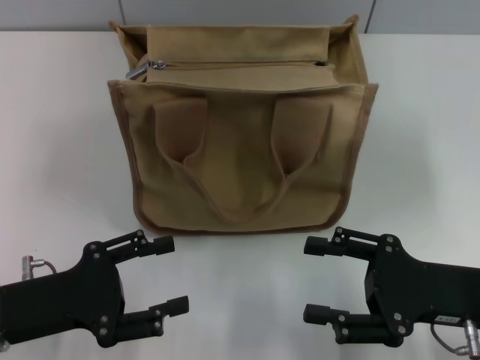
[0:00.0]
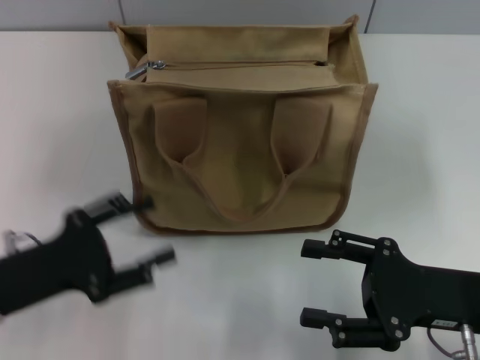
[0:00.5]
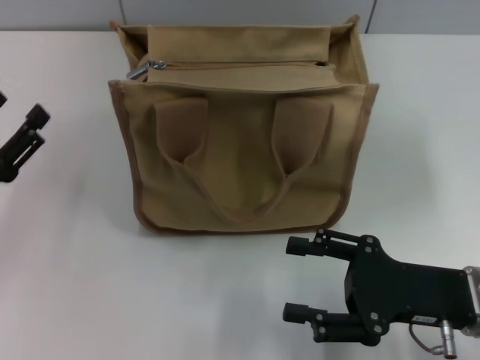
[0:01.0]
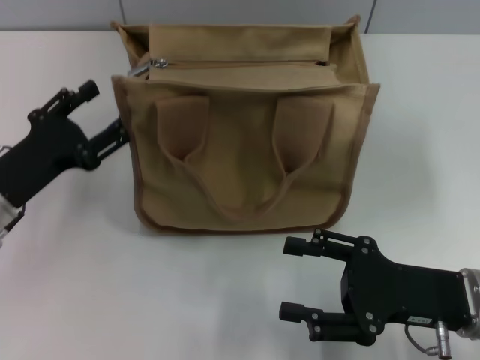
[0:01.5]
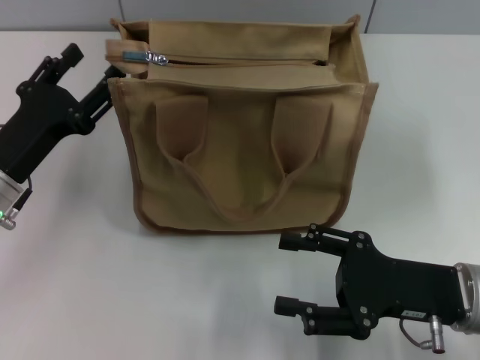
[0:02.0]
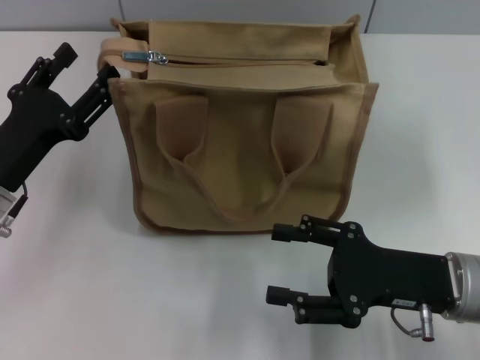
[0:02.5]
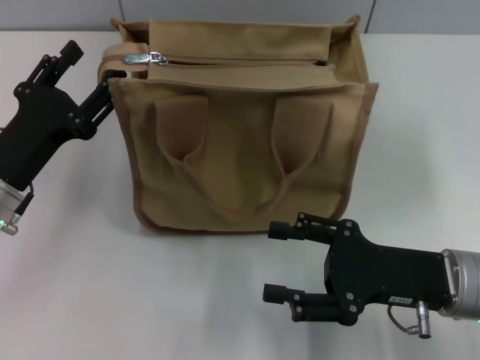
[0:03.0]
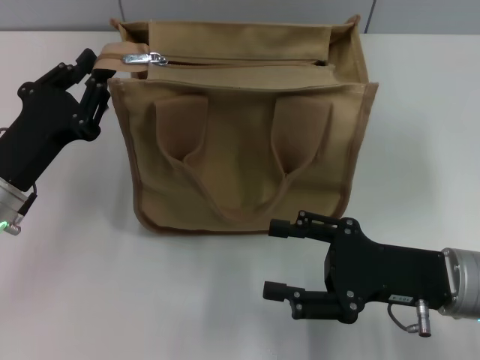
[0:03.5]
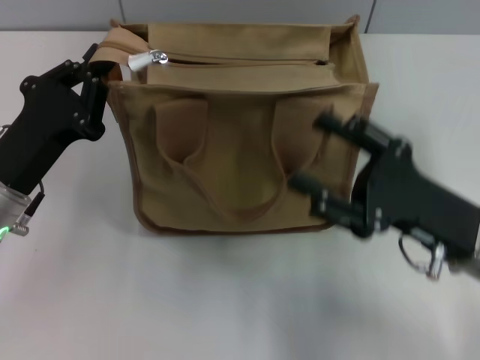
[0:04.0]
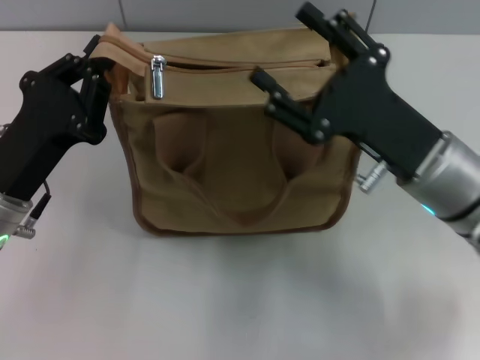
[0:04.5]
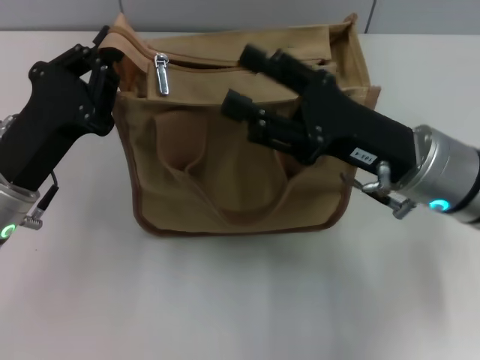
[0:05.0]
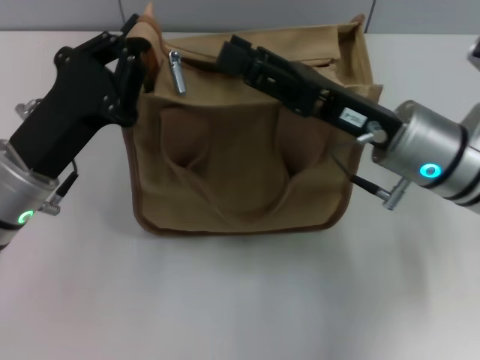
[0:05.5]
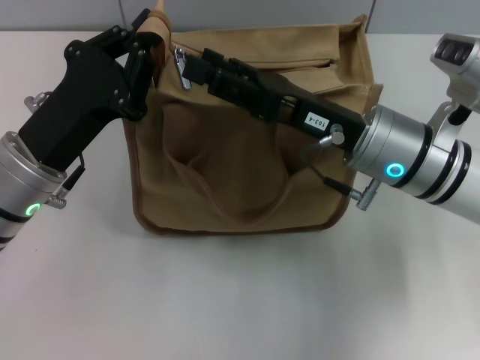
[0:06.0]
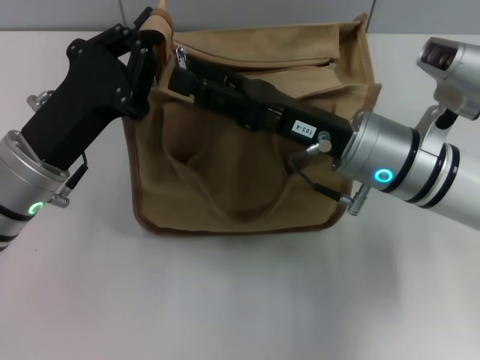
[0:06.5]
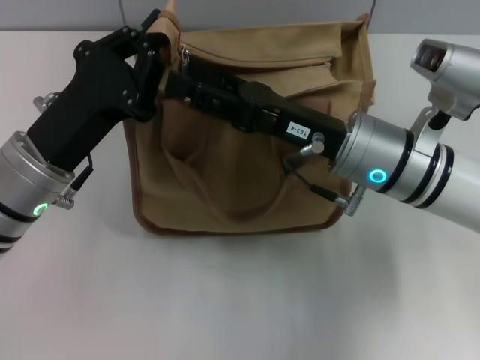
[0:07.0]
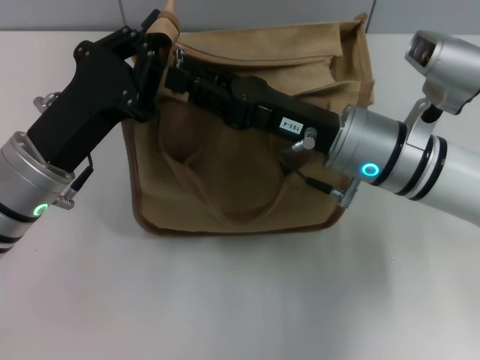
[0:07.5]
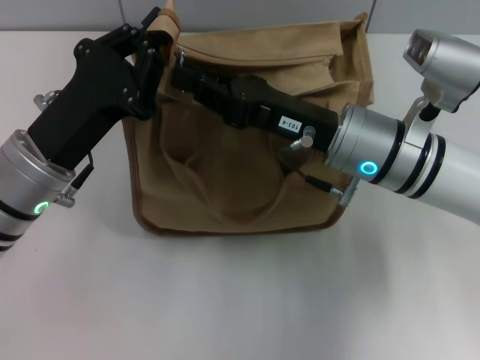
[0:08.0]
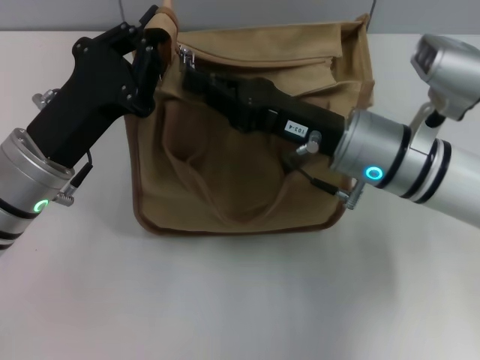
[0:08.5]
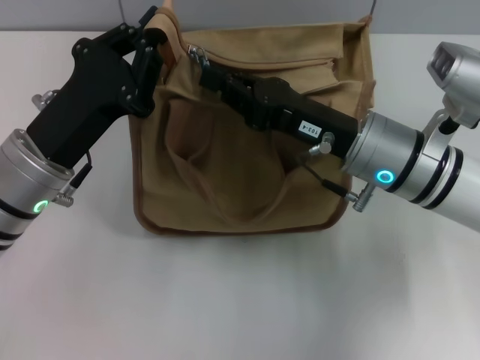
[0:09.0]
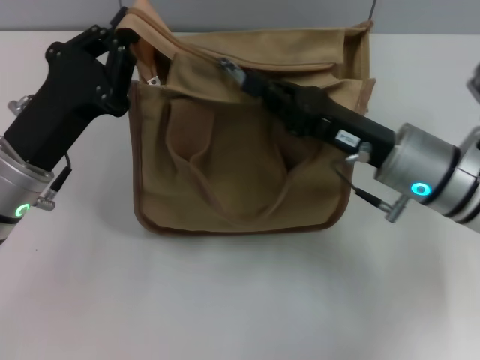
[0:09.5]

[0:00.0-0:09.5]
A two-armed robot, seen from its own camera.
0:00.0 to 0:02.0: The left gripper travels forward by approximately 10 cm.
0:02.0 to 0:04.0: The left gripper closes up.
0:04.0 to 0:05.5: The right gripper shifts about 10 cm forward and to the left.
0:07.5 to 0:09.5: The right gripper travels to the right by some 5 cm, and closes its fingers.

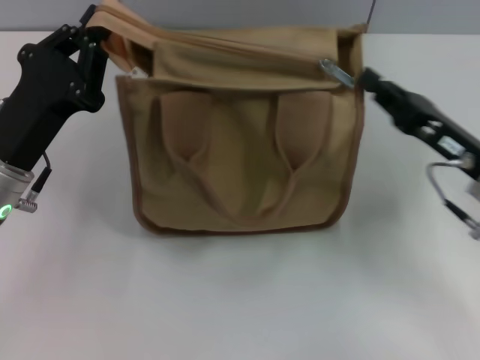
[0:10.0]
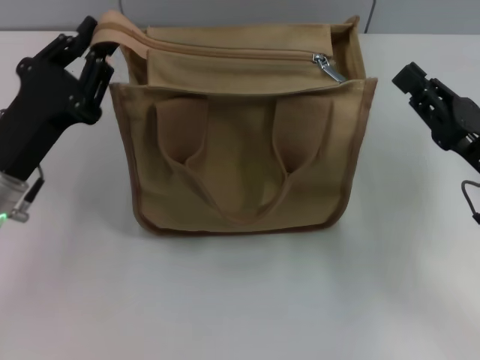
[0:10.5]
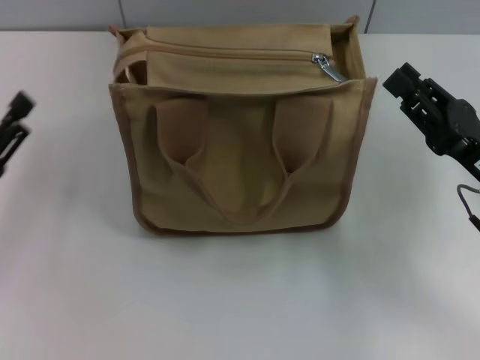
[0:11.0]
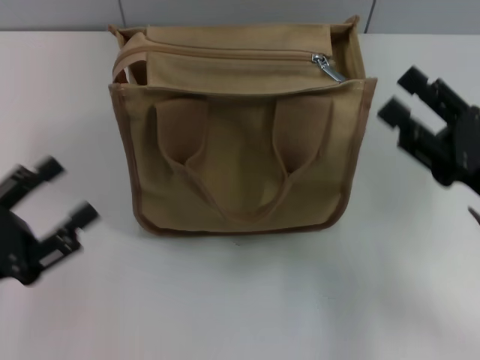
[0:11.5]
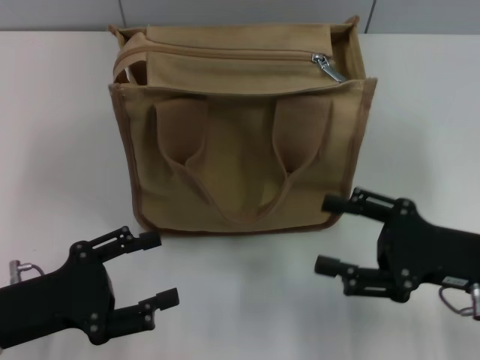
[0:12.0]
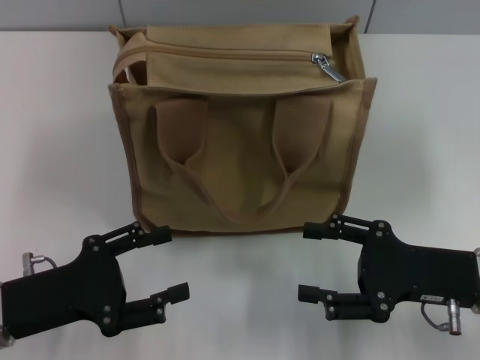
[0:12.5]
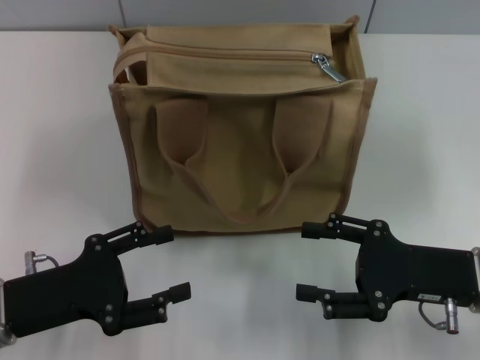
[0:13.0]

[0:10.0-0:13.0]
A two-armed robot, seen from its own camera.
0:10.0 to 0:11.5: The right gripper ends up approximately 5 cm from where it was, and opens its fingers; the left gripper shifts approximately 15 cm backward and to the left, and opens.
0:11.5 to 0:13.0: The left gripper changes place by approximately 5 cm.

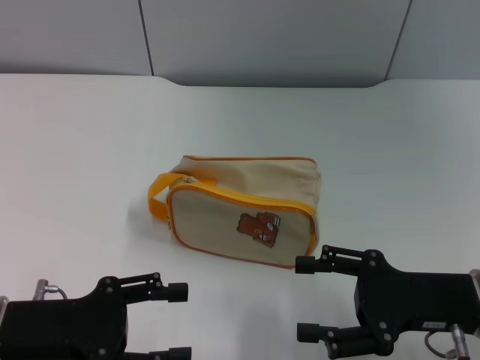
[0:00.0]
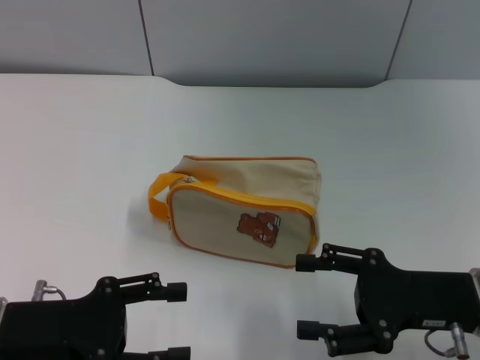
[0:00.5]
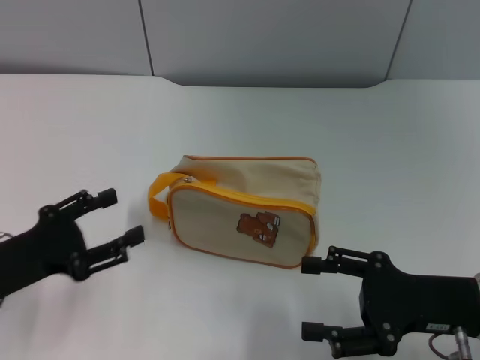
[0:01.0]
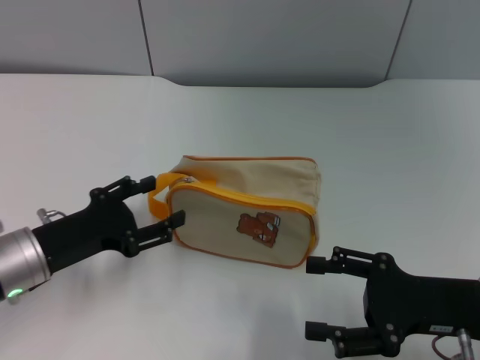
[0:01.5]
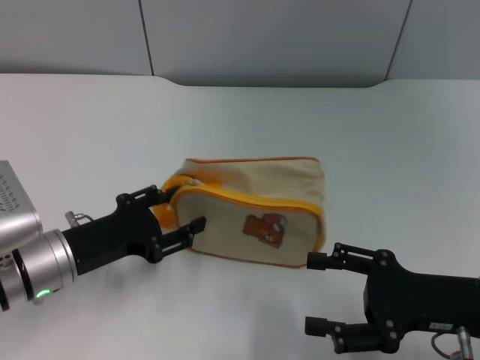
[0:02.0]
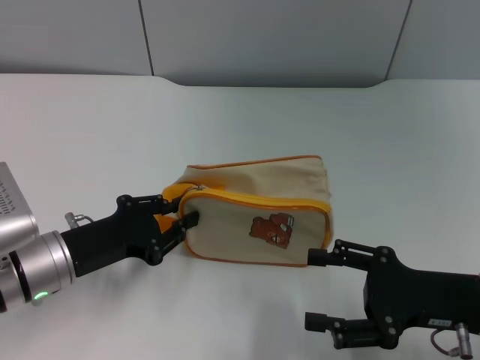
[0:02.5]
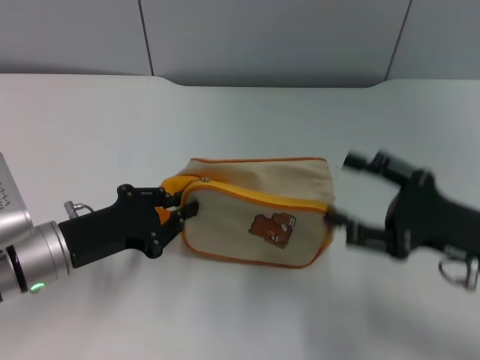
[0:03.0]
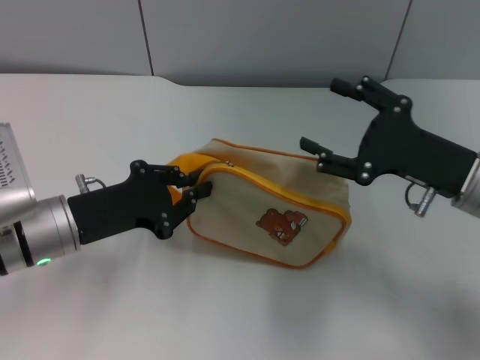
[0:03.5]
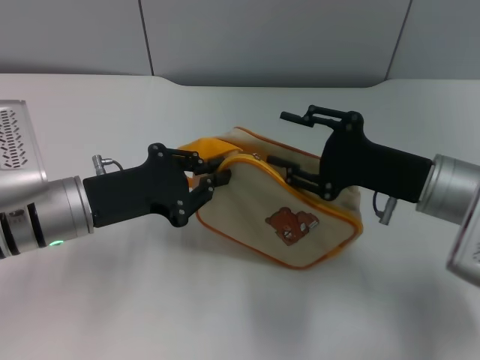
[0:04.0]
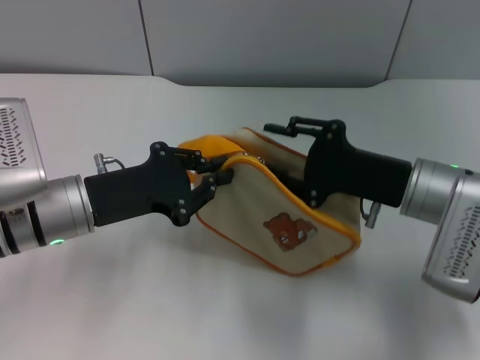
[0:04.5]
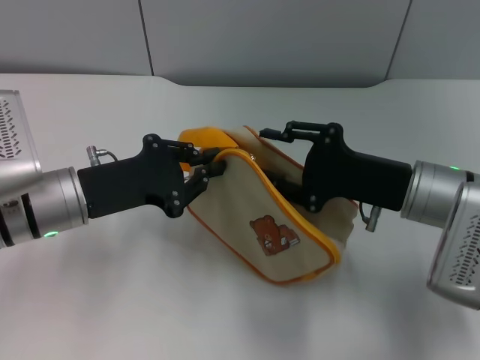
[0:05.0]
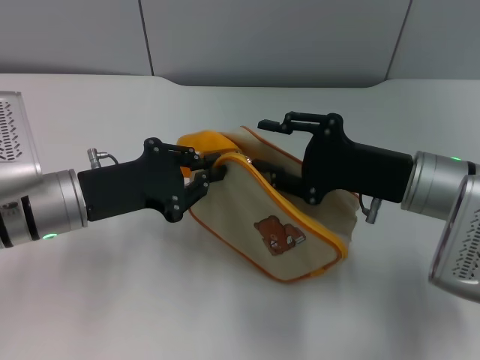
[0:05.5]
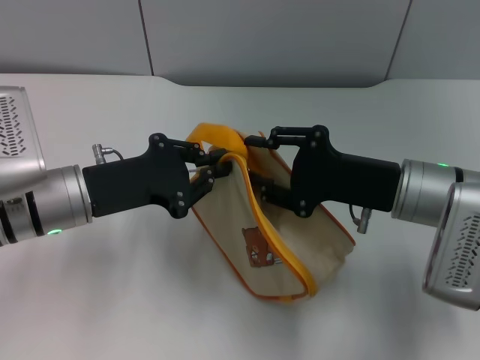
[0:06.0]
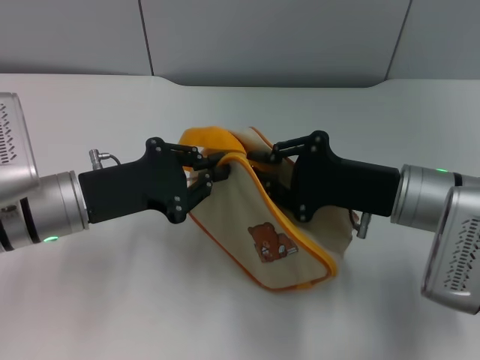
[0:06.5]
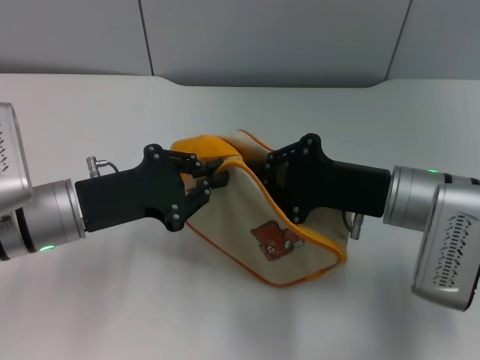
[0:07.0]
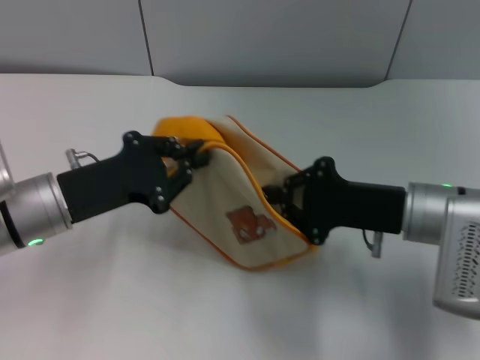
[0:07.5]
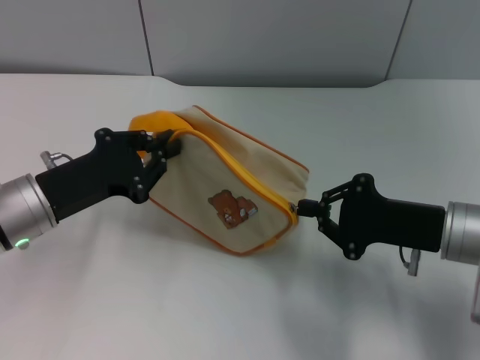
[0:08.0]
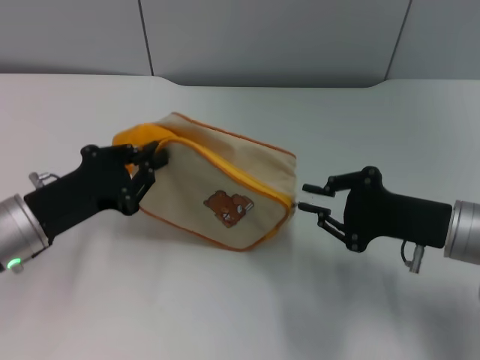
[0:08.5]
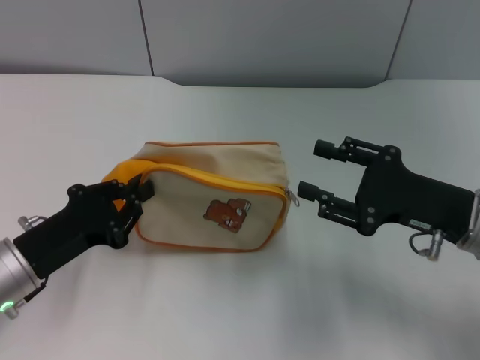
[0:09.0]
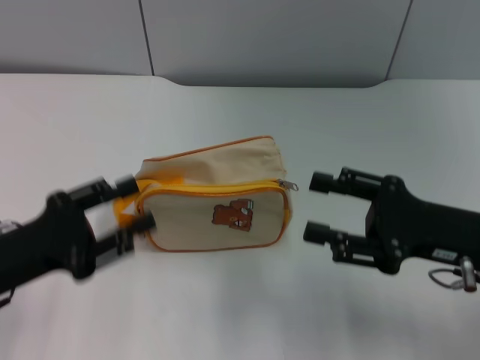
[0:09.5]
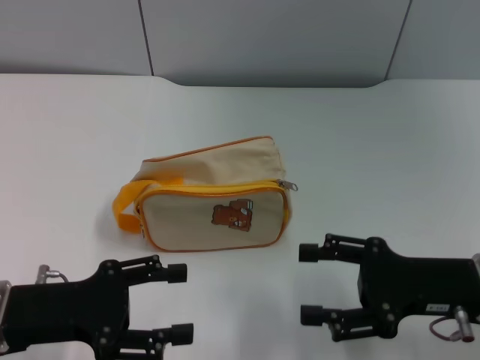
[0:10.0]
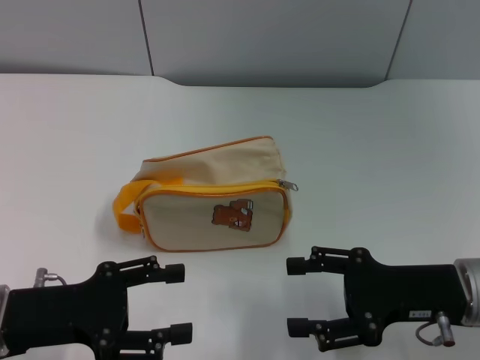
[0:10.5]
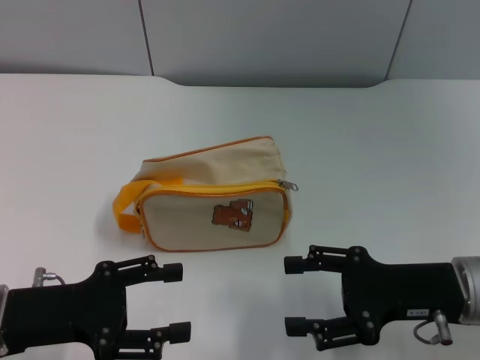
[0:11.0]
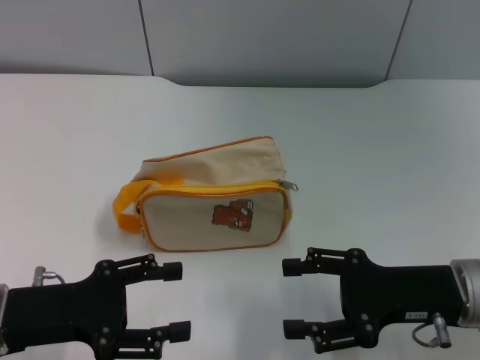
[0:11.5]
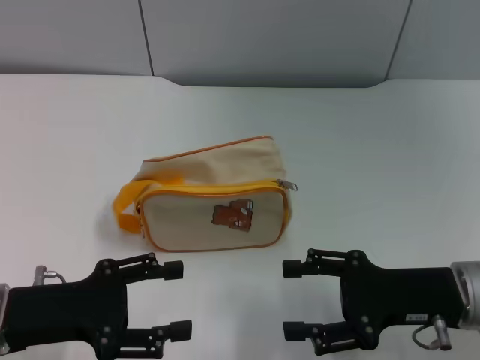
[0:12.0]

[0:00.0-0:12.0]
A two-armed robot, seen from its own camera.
Step, 0:00.0 to 0:03.5: Pick up the bag with left gripper.
Step, 0:04.0 to 0:08.5: Unzip the zipper of bag with right gripper.
Step, 0:09.0 to 0:09.5: Place the bag on the table with left gripper.
0:00.0 to 0:02.0: The left gripper goes approximately 5 cm forward.
0:02.0 to 0:04.0: The right gripper shifts about 10 cm forward. The left gripper changes place by roughly 5 cm, and closes.
0:06.0 to 0:08.0: The right gripper changes place by approximately 5 cm, and closes up.
0:08.0 to 0:10.0: The left gripper heads backward, covering roughly 10 cm, and opens; the right gripper changes place by about 5 cm, and opens.
0:10.0 to 0:12.0: The grippers stay close to where they were, moving slightly.

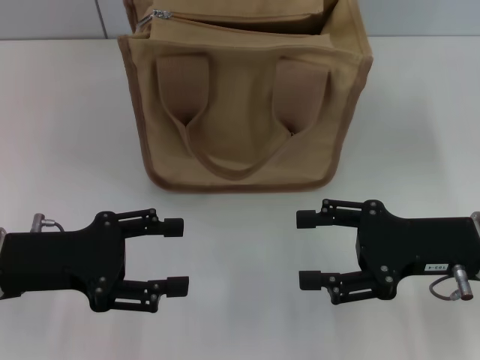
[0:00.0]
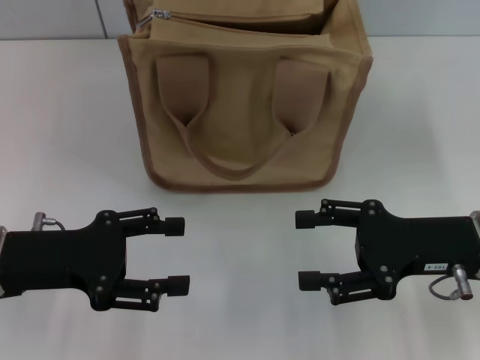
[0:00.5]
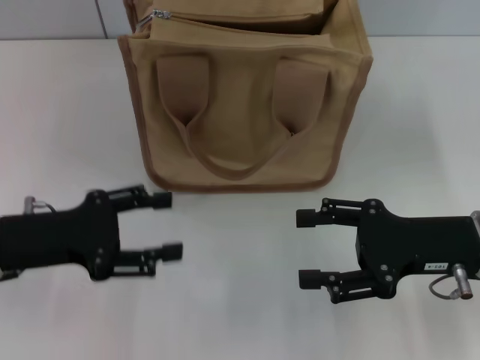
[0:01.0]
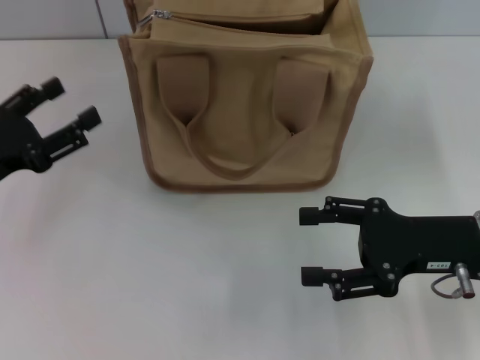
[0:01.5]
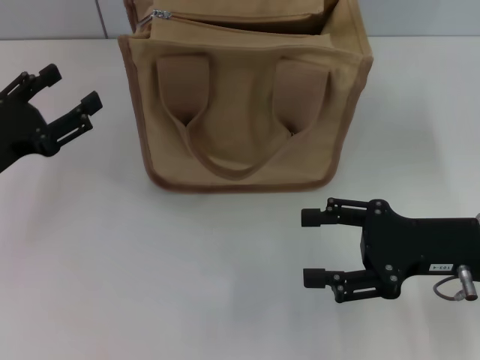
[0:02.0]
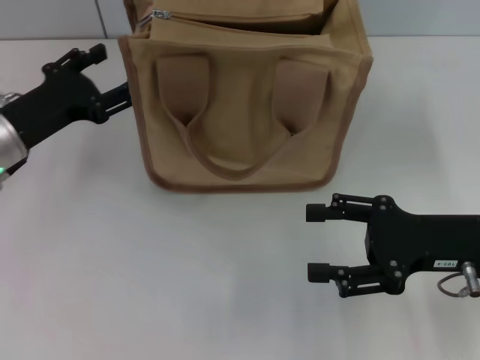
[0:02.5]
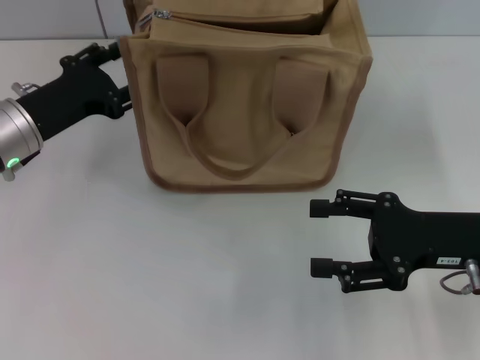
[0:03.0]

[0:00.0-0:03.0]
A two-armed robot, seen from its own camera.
0:00.0 to 0:01.5: The left gripper changes place by some 5 cm.
0:01.5 to 0:03.0: The left gripper travels forward and to the right by roughly 10 cm.
